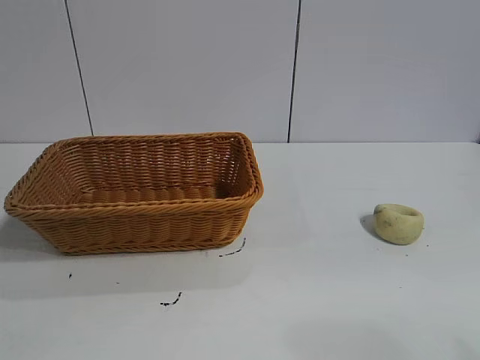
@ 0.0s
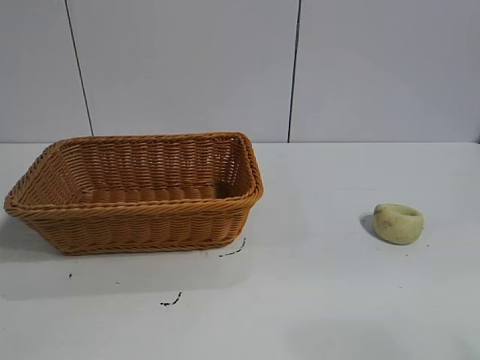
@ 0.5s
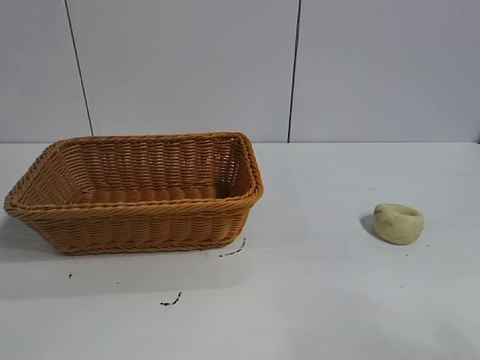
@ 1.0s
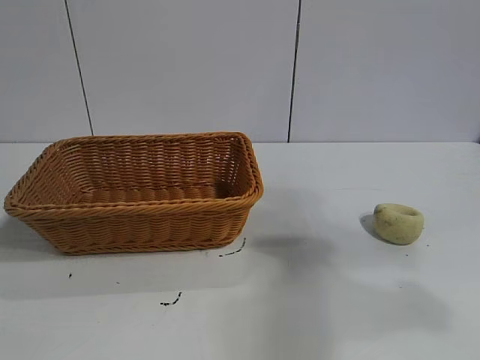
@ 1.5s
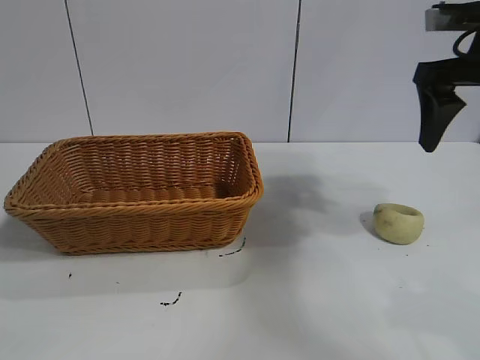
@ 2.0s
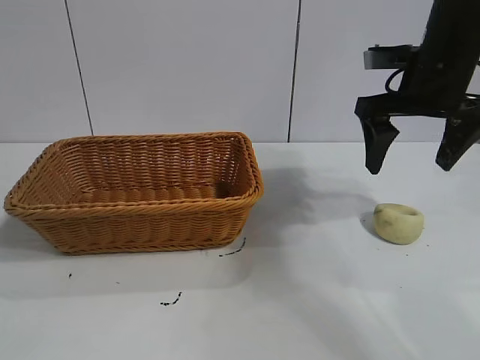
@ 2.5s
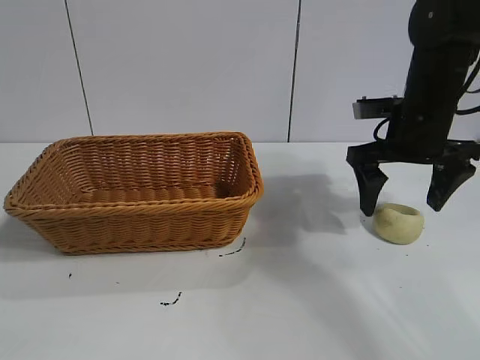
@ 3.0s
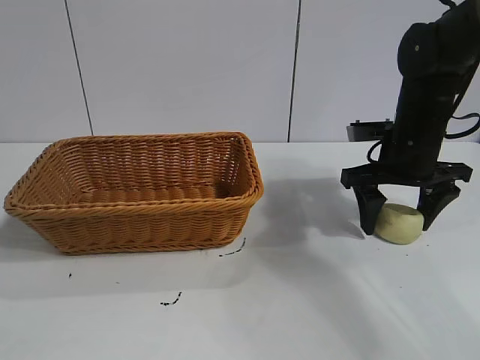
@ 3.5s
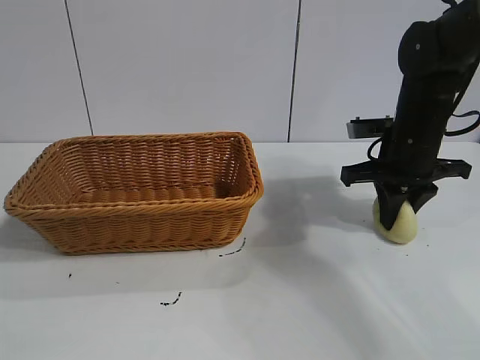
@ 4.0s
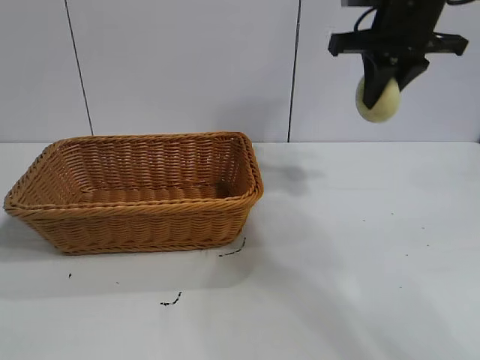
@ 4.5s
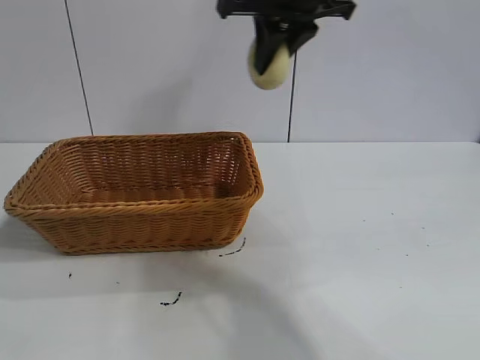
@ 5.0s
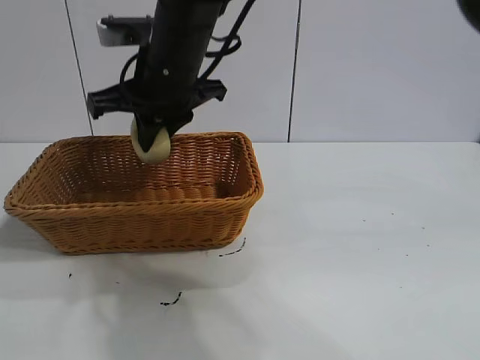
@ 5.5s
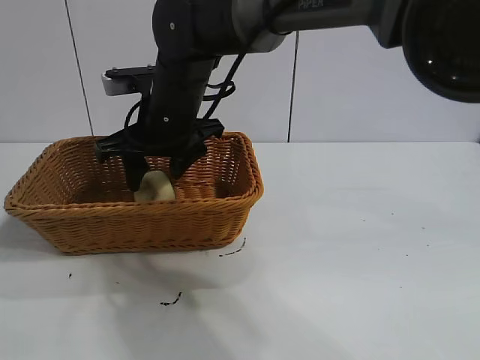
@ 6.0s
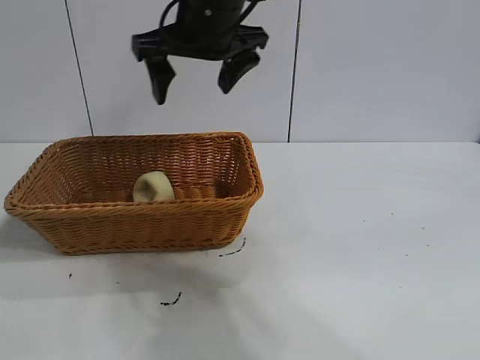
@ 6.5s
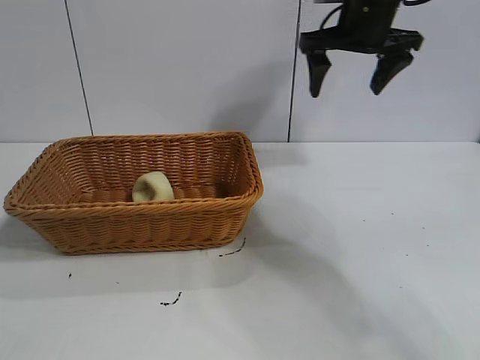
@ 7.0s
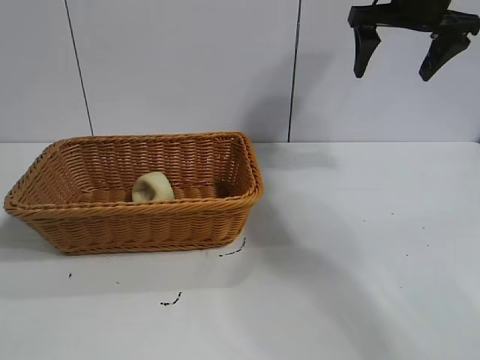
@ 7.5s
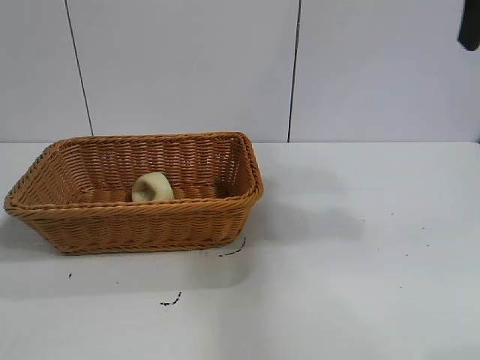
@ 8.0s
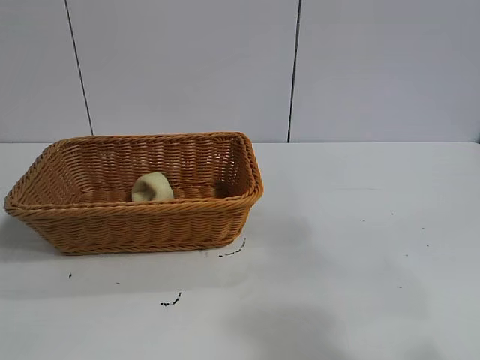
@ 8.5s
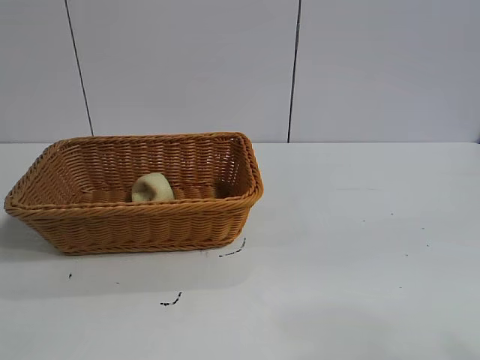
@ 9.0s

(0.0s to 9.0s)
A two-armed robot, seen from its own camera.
Task of the whole recording: pick up the egg yolk pastry and put it into the basket.
Step, 1.0s - 3.5s: Grasp egg yolk pastry with right gripper.
Step, 4.5s - 6.0s: Place the egg yolk pastry in the basket with right gripper.

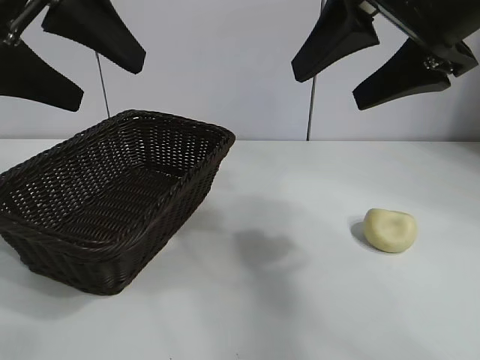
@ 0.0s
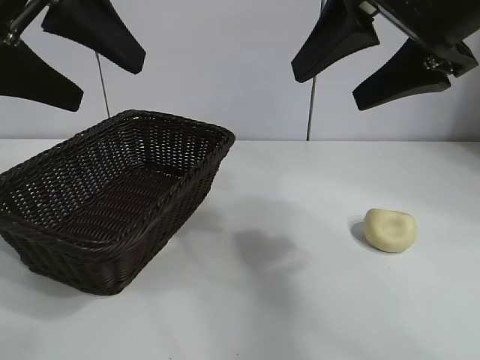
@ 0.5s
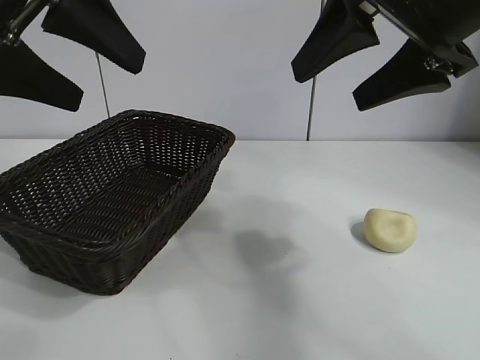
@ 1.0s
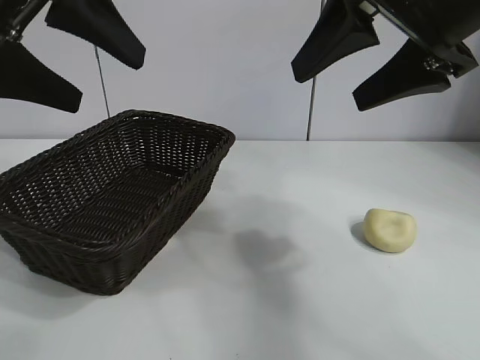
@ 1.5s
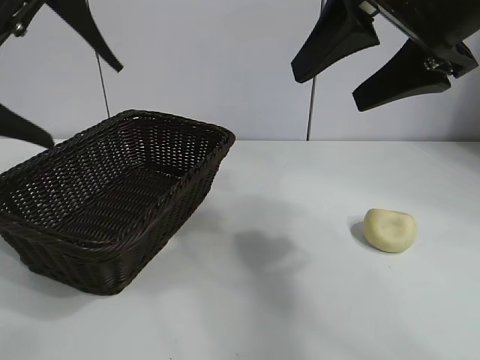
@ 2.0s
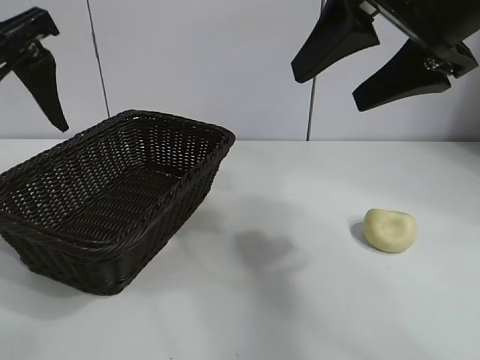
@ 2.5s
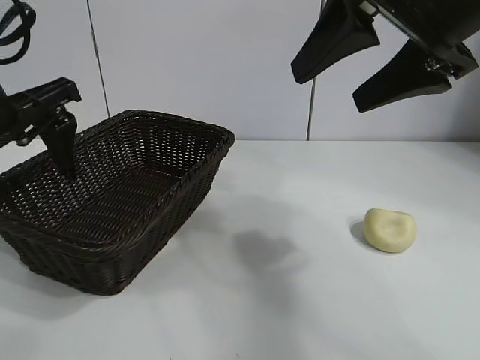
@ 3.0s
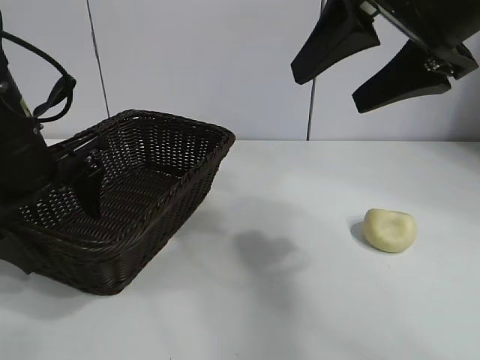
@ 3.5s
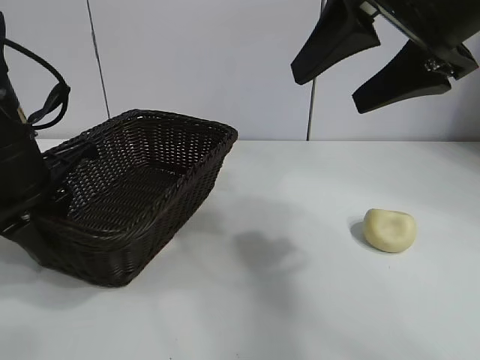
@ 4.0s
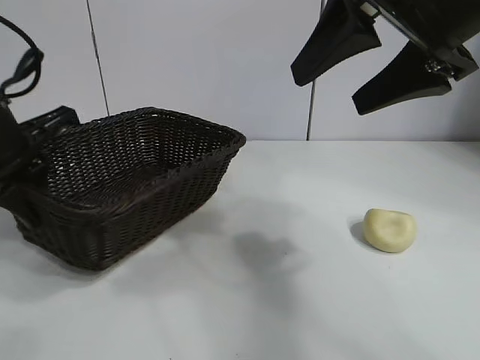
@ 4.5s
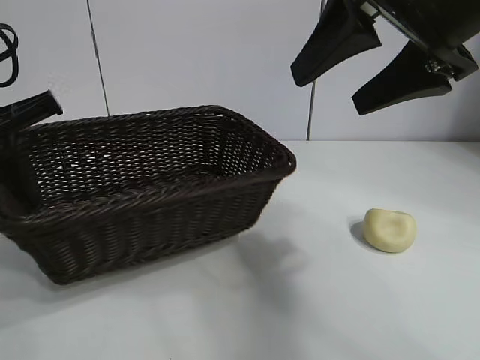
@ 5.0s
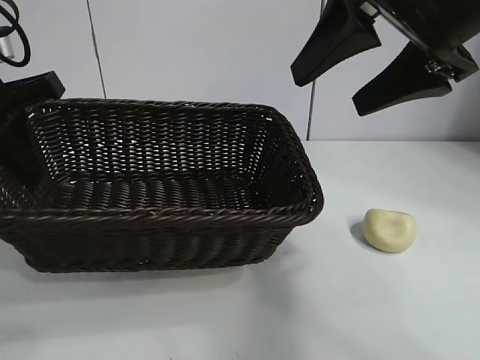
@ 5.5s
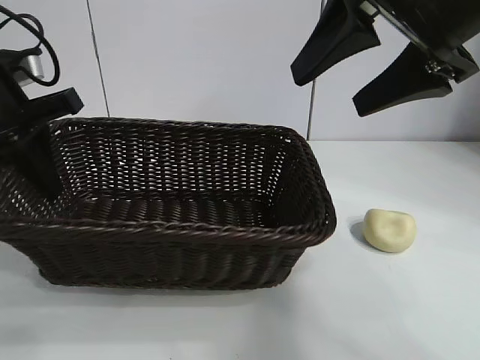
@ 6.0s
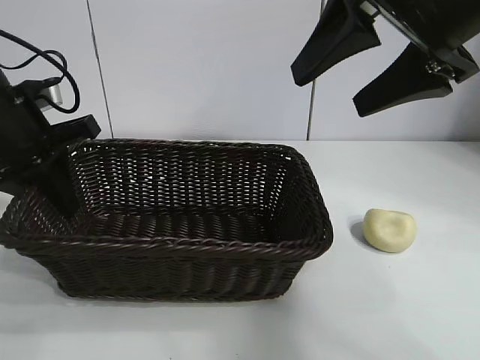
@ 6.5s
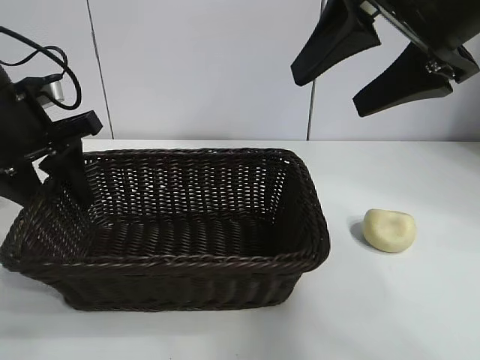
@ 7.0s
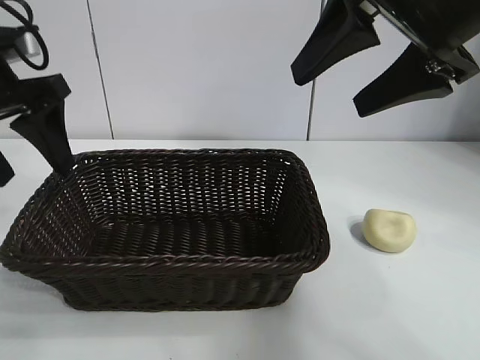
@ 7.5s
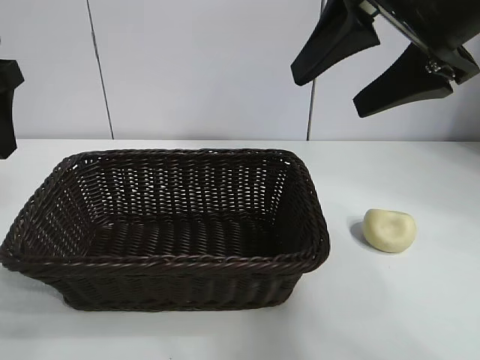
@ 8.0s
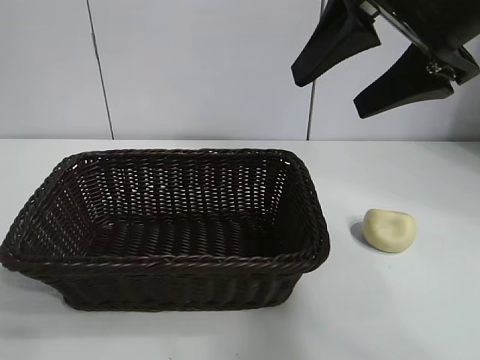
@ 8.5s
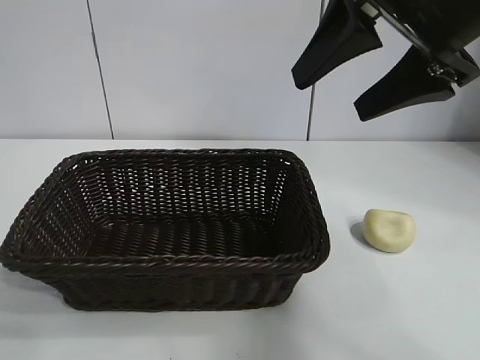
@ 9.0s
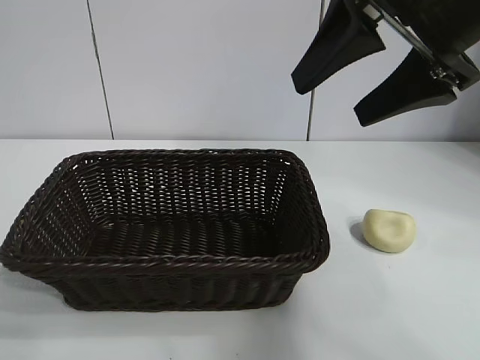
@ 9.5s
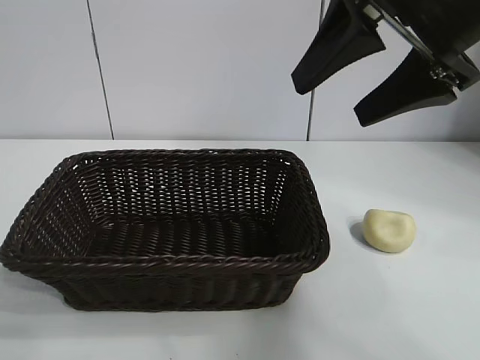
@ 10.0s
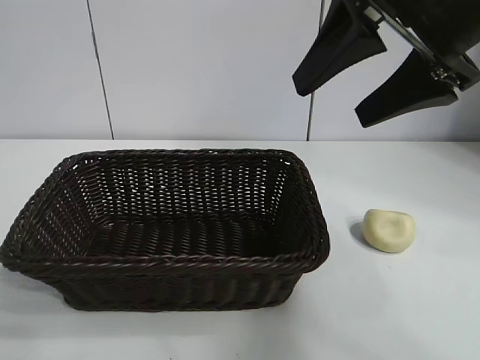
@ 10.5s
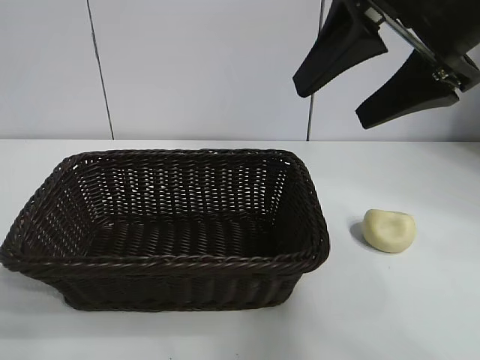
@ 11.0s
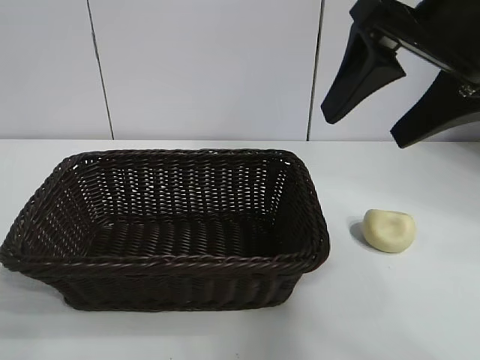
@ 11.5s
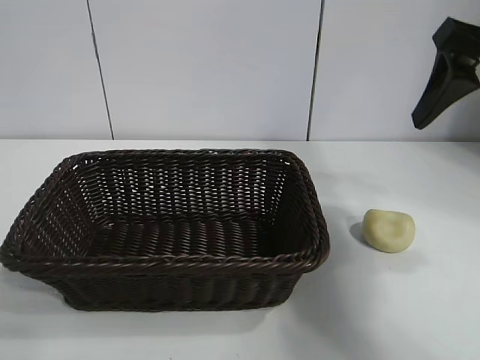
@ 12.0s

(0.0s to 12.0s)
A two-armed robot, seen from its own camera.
Task of the whole recording: pick up the egg yolk pastry and put it into the basket.
Step, 1.5s - 4.0s: Grasp the basket with left gripper.
Step, 4.5s - 7.0s: Place the basket in the center of view with left gripper.

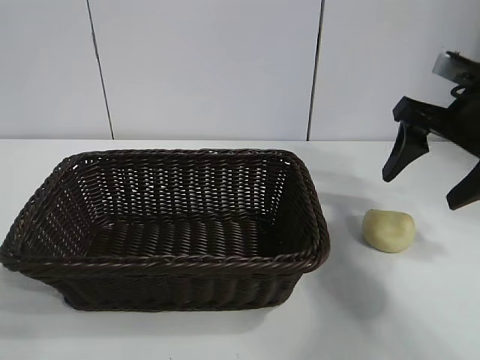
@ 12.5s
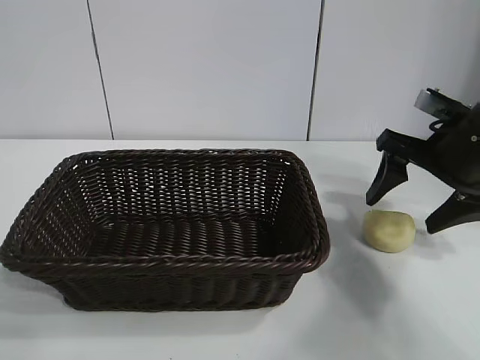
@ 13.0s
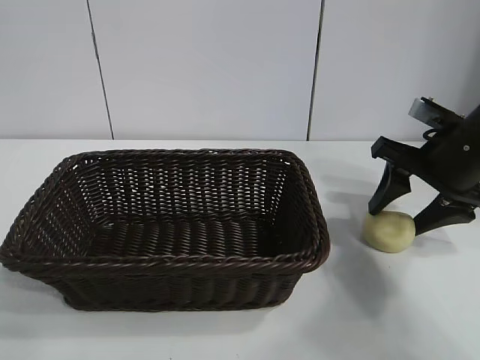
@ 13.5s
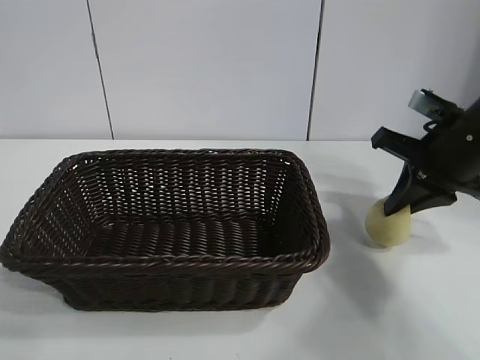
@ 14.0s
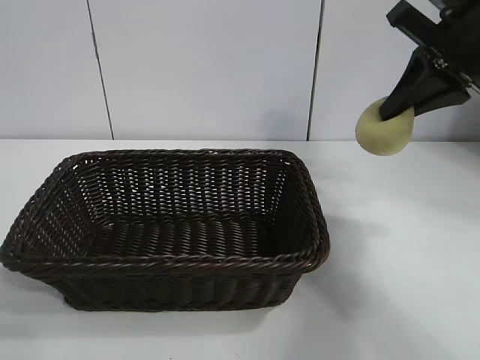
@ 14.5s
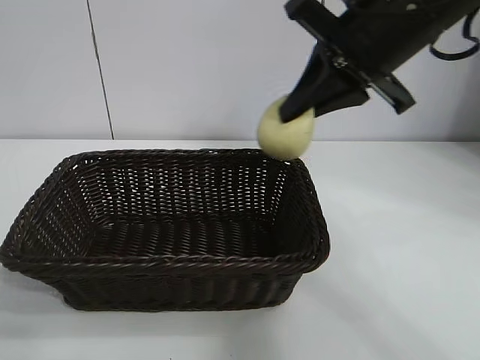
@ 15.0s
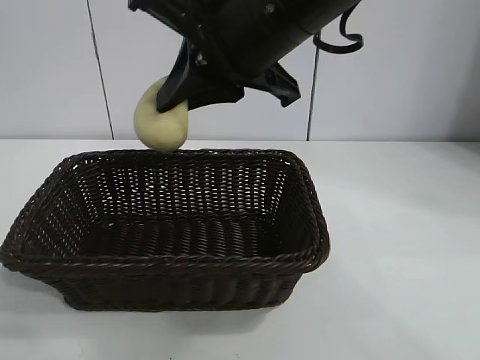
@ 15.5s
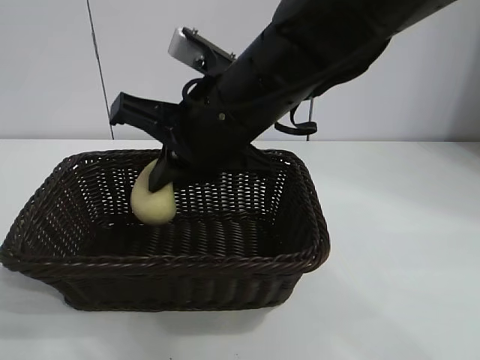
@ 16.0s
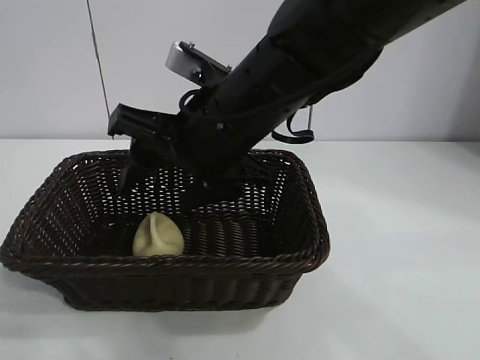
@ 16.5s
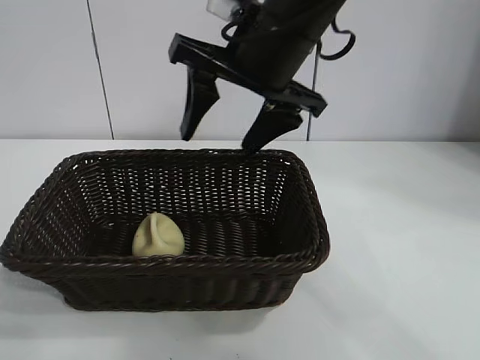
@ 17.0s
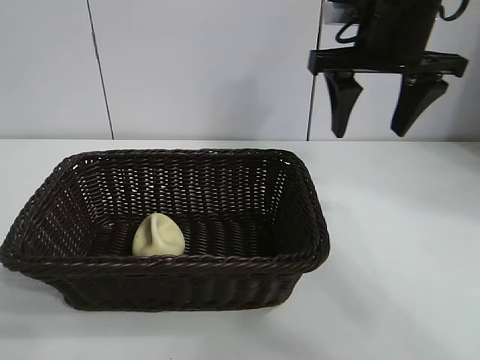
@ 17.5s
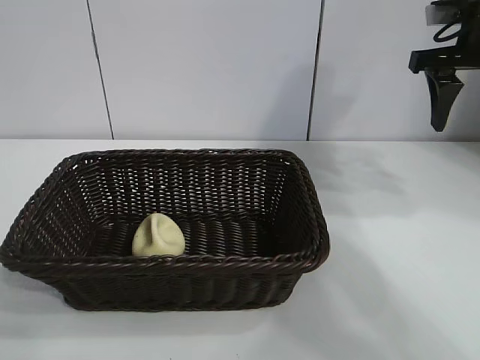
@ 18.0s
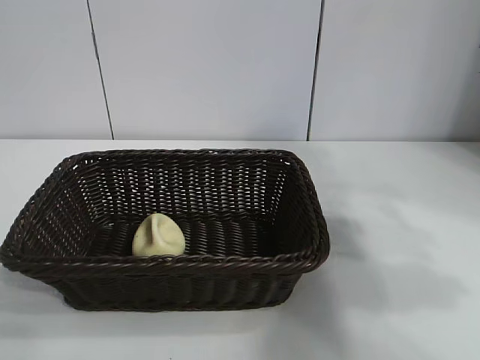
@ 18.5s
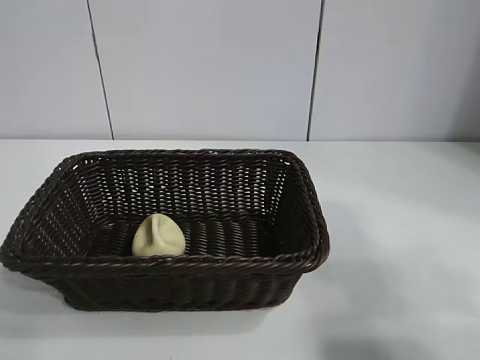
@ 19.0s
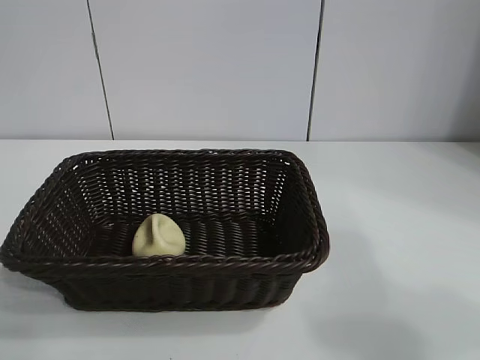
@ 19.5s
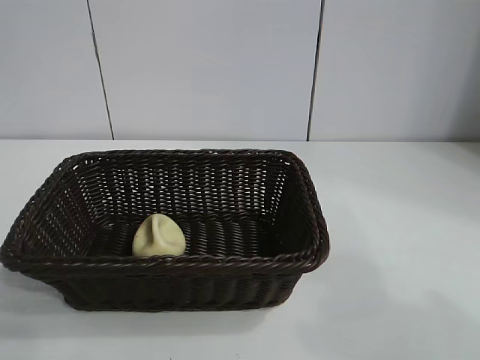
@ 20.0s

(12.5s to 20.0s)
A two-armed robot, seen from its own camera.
Task of the whole recording: pick up the egg yolk pastry and put it into the basket.
Step, 14.0s - 16.5s: Place the egg yolk pastry in the basket with right gripper.
